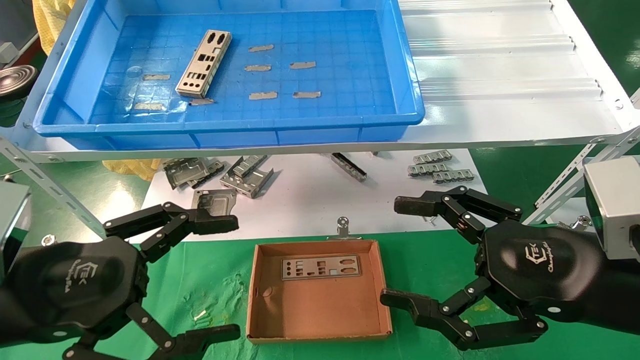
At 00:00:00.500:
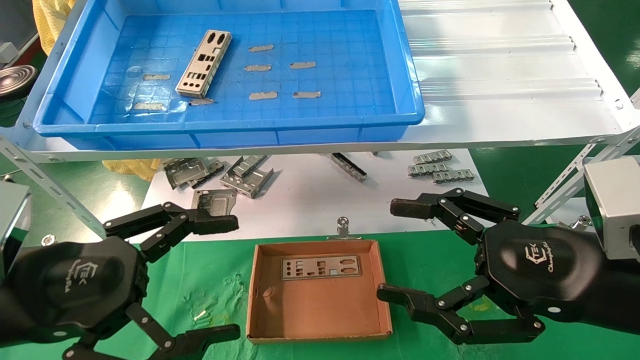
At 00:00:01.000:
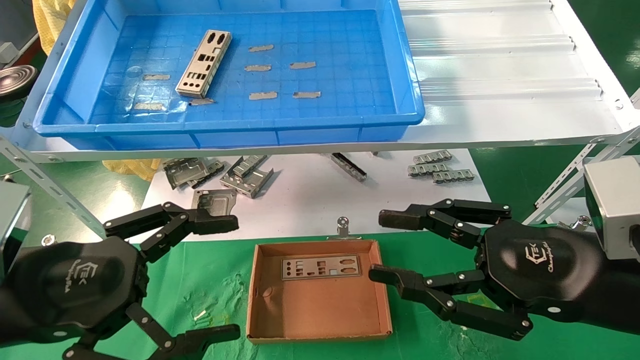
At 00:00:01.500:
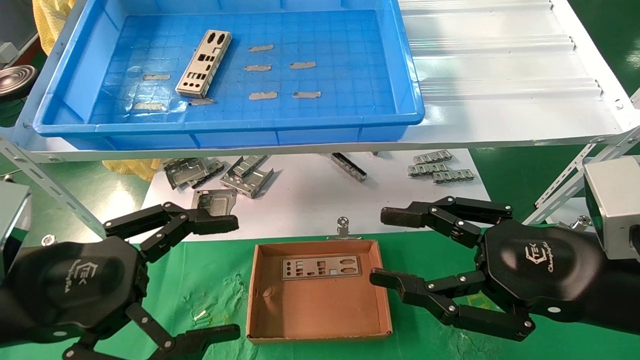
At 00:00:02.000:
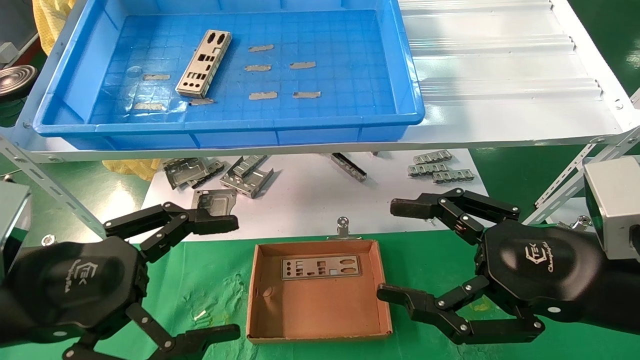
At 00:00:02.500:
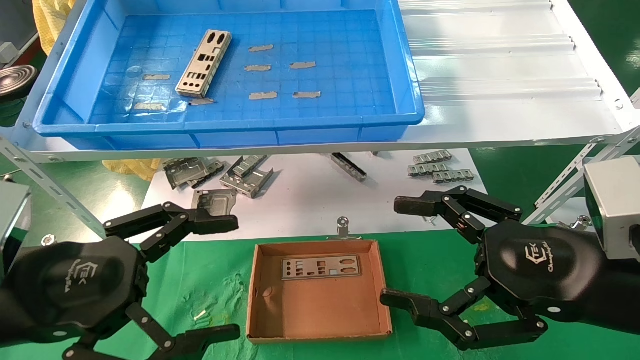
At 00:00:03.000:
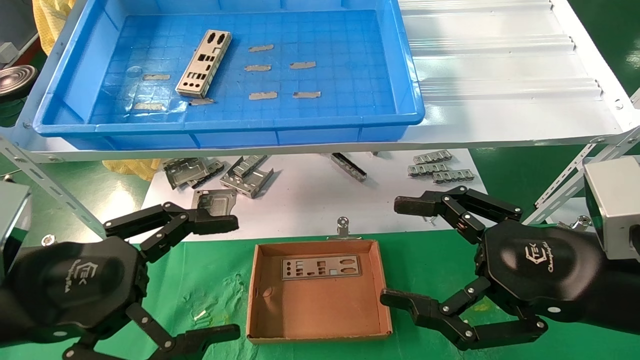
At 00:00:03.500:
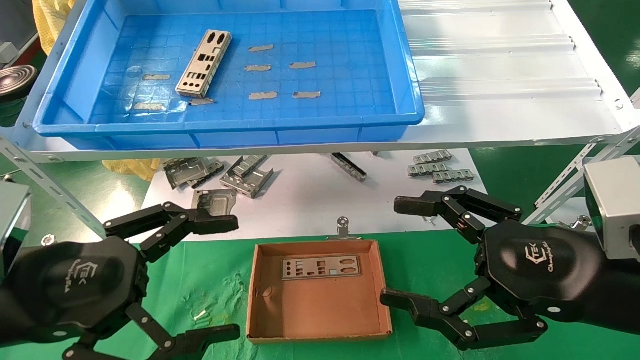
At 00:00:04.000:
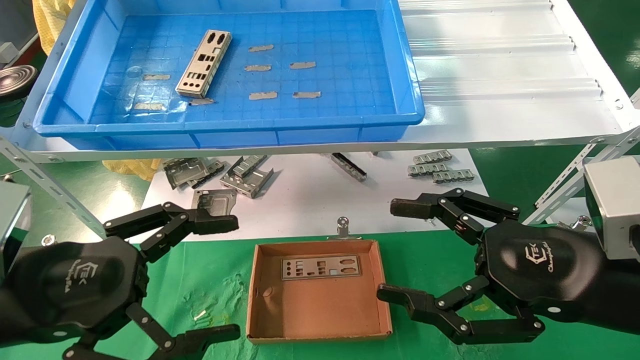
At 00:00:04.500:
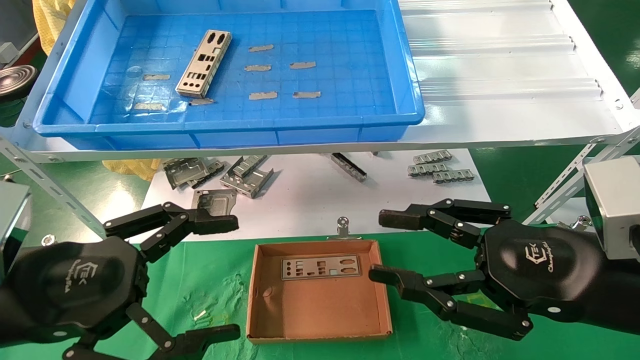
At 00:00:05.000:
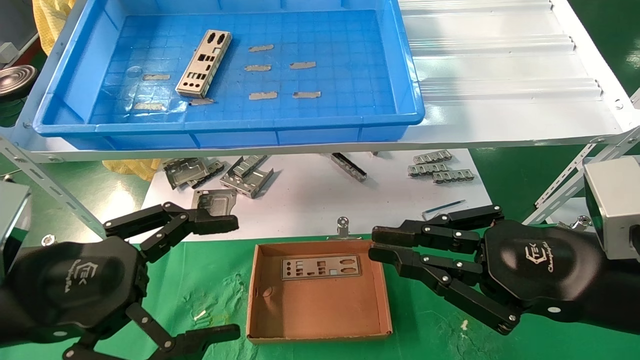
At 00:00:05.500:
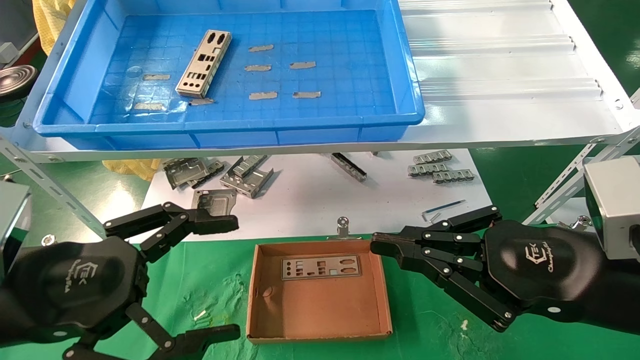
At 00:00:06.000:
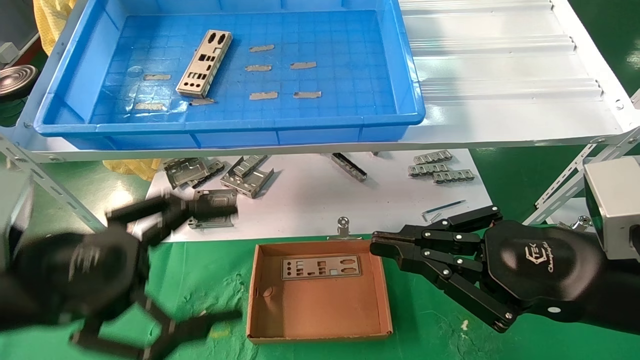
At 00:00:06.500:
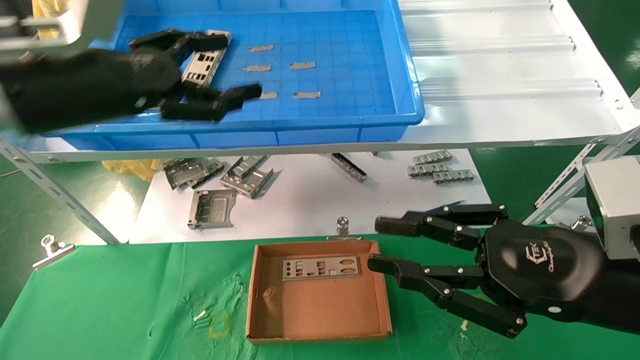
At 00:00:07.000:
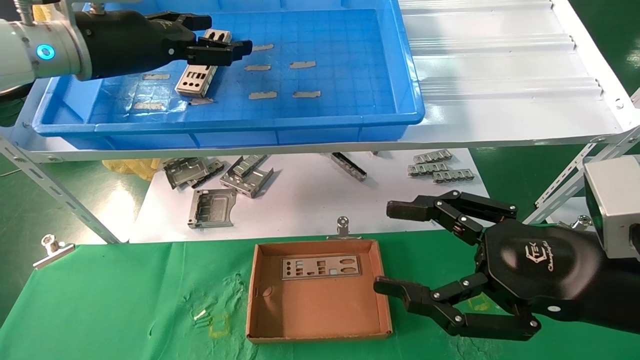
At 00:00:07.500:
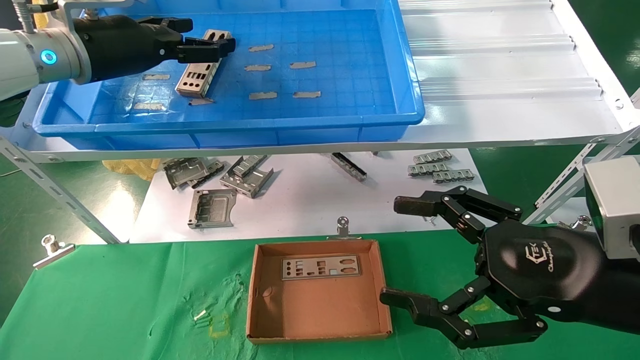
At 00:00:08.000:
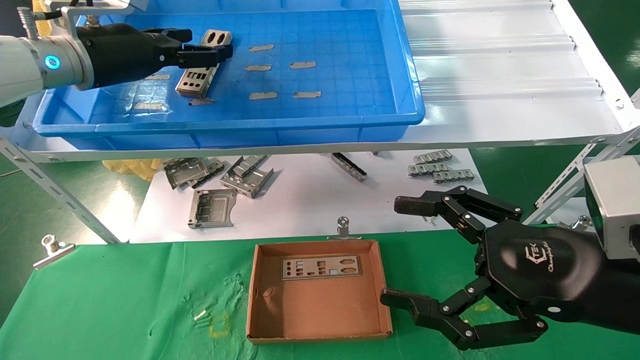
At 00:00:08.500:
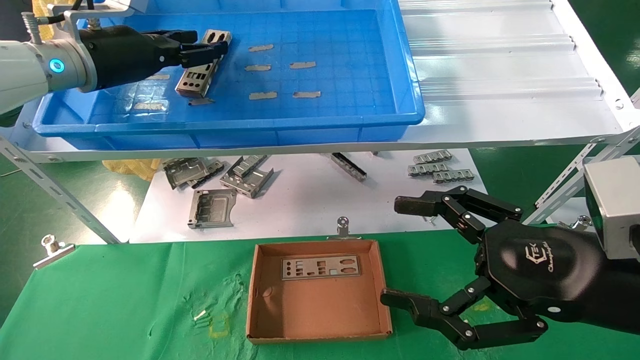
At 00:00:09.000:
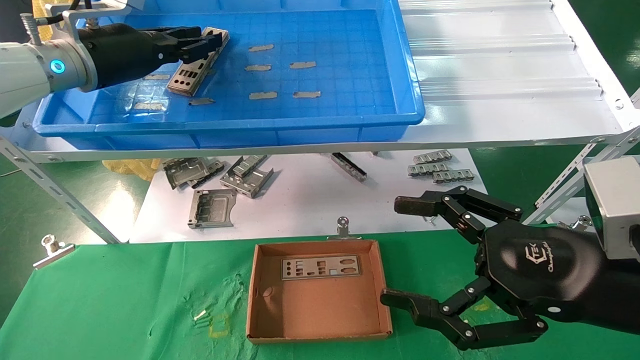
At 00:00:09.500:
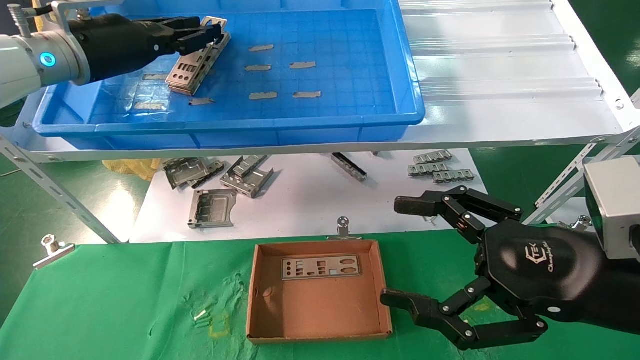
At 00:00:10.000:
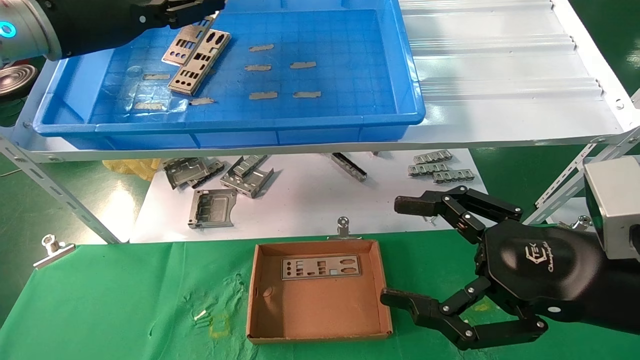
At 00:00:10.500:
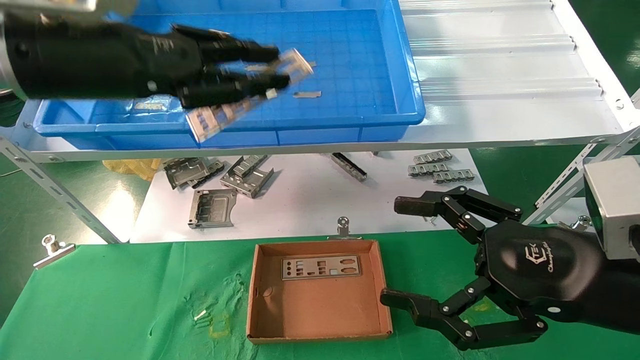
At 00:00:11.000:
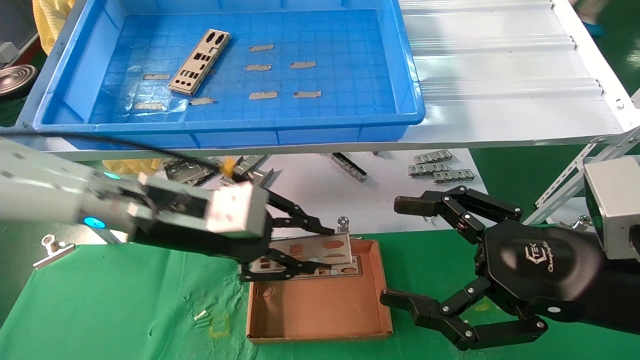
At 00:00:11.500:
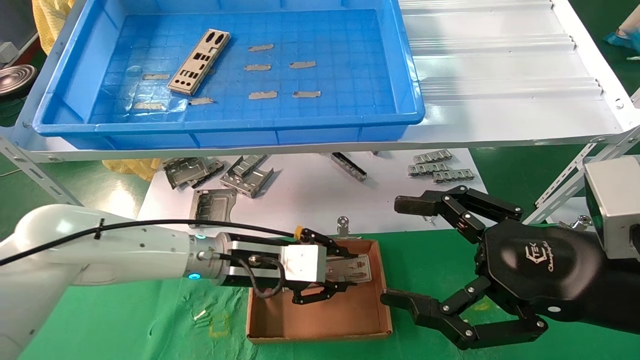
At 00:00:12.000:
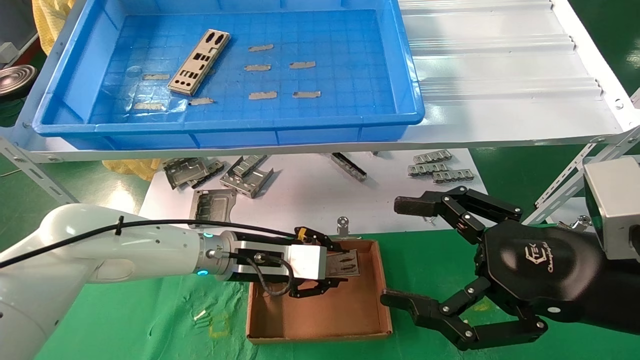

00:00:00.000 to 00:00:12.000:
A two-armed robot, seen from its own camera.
Task of the whole recording: pick up the parts on the tray and put them in the cardboard box.
Step, 00:00:06.500 to 00:00:09.000: Pick up the IO bracket from the container box.
00:00:00.000 to 00:00:04.000: Both grippers stay about where they are.
00:00:04.000 to 00:00:06.000: The right gripper closes up.
00:00:06.000 to 00:00:08.000: The right gripper opens up, while the left gripper goes approximately 25 cm forward and upward.
00:00:08.000 to 00:00:10.000: The left gripper closes.
00:00:10.000 to 00:00:12.000: The left gripper shifts about 35 cm downward and to the right.

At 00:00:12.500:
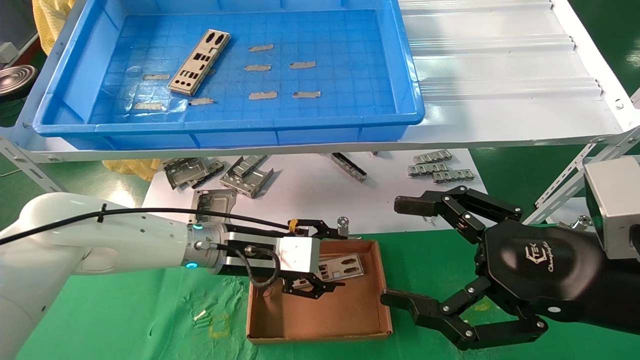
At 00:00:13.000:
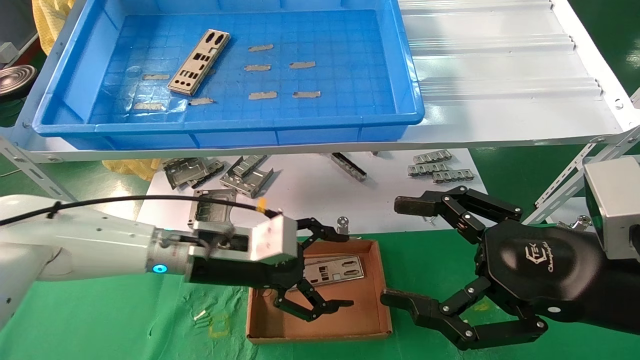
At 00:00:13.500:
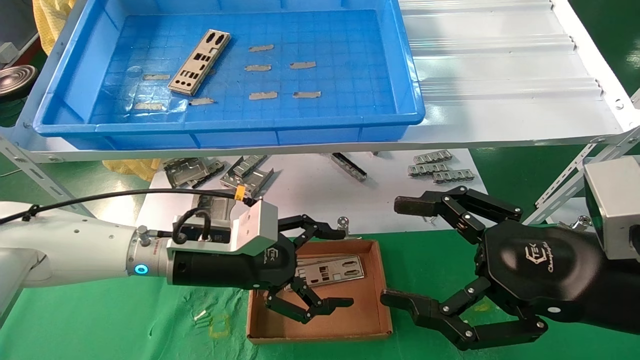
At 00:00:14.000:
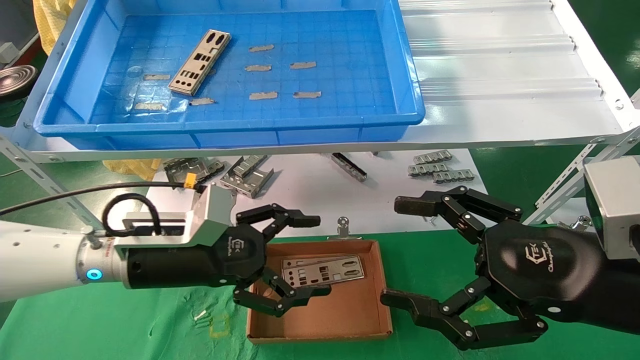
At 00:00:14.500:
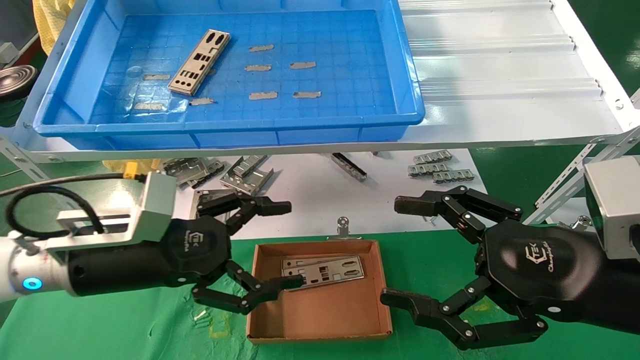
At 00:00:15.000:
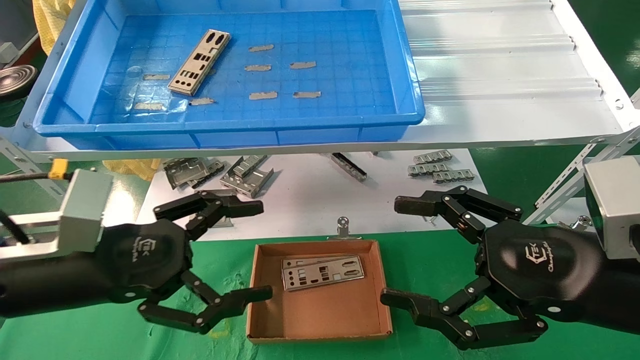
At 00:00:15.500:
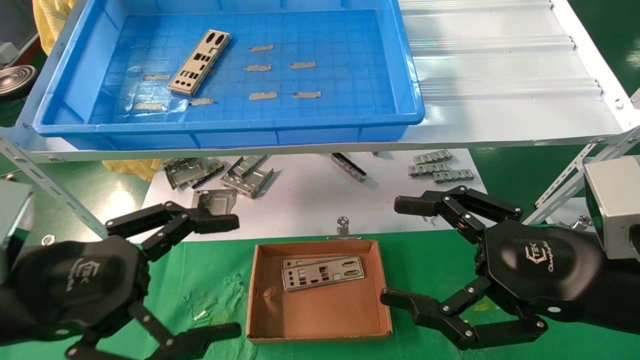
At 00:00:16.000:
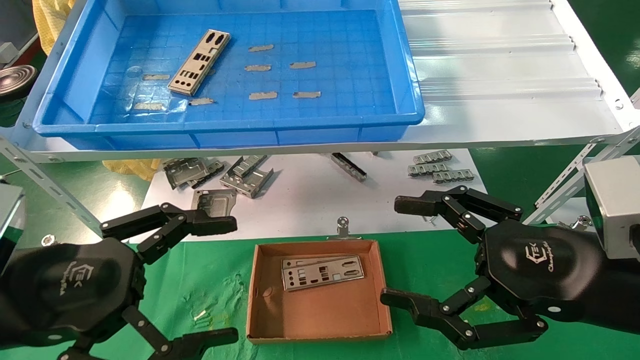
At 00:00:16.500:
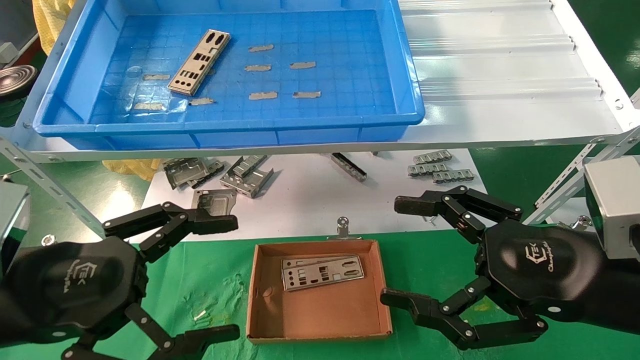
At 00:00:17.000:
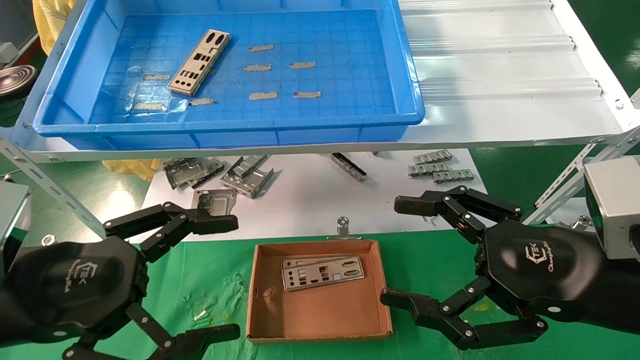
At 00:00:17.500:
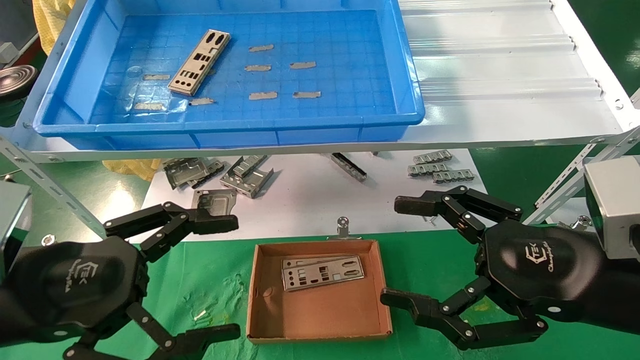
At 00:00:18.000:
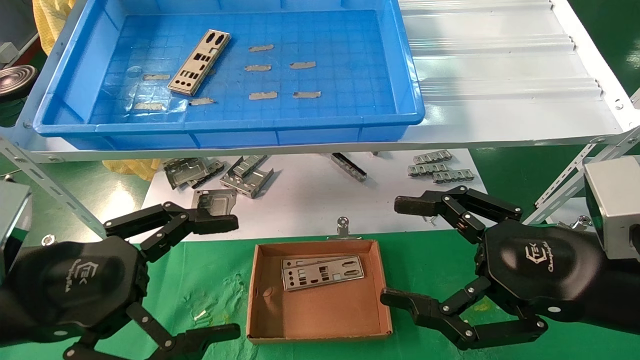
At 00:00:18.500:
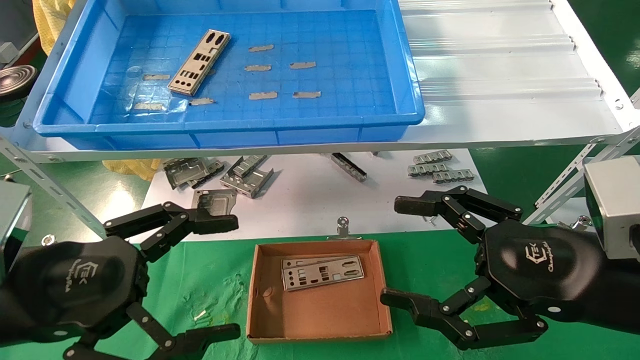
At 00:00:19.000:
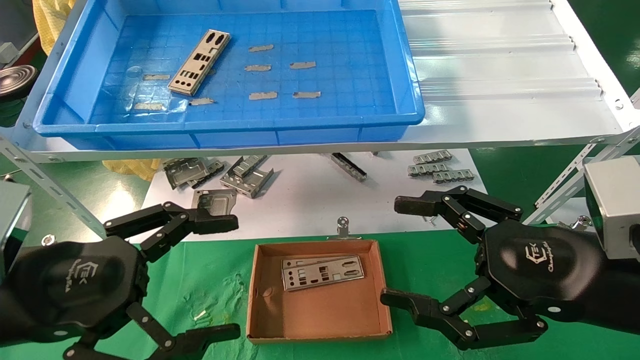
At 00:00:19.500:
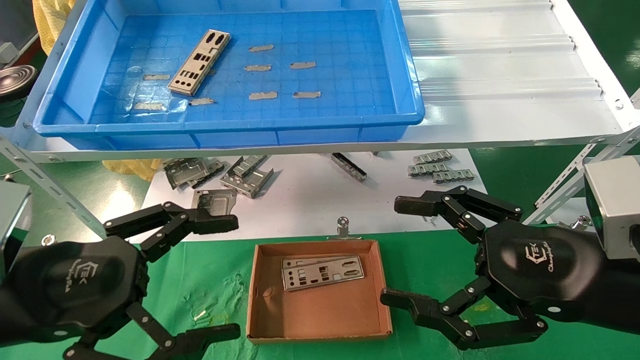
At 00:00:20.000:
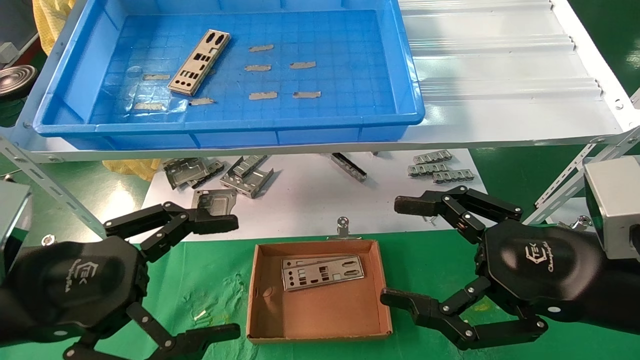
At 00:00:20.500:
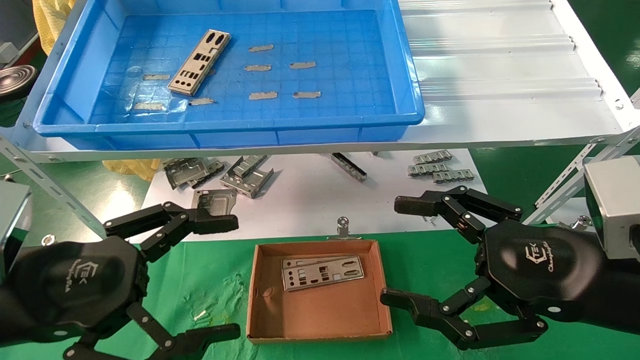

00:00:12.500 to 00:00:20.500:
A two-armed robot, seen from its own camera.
Task of the whole recording: pick up the parts on the tray and put them in the cardboard box.
00:00:12.500 to 00:00:14.500: The left gripper moves backward, to the left and upward, roughly 15 cm, and opens.
00:00:14.500 to 00:00:16.500: The left gripper moves backward, roughly 10 cm.
00:00:16.500 to 00:00:20.500: Neither gripper changes place.
